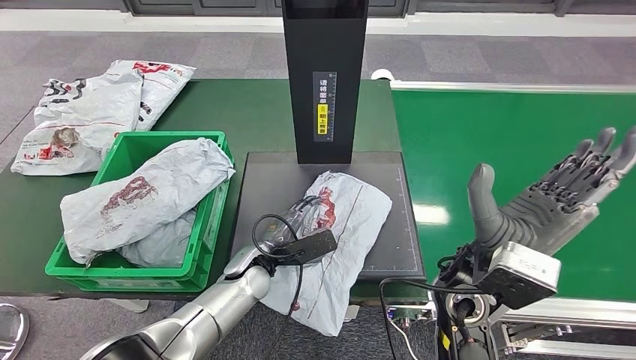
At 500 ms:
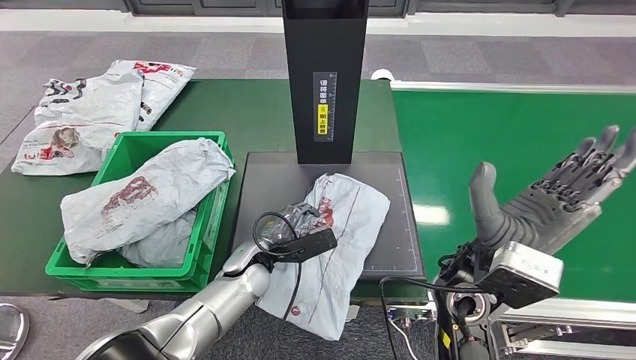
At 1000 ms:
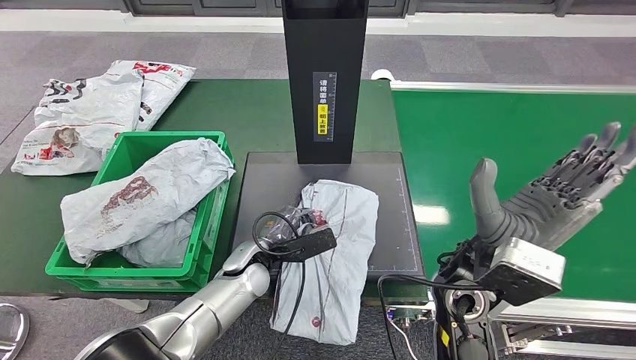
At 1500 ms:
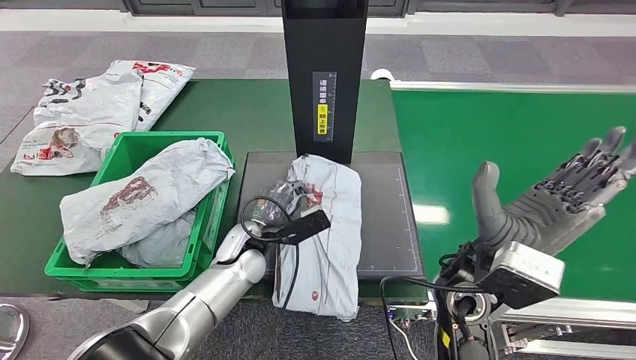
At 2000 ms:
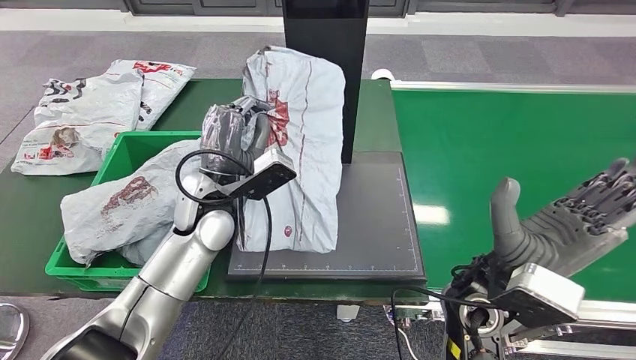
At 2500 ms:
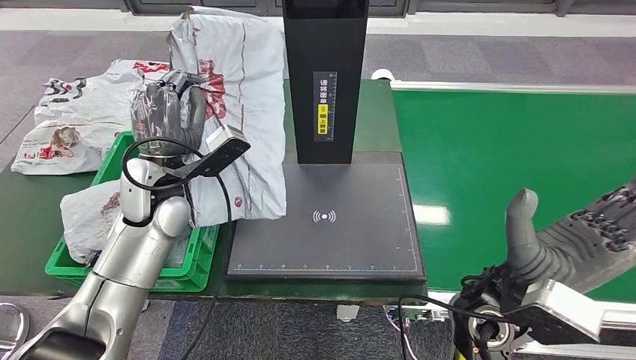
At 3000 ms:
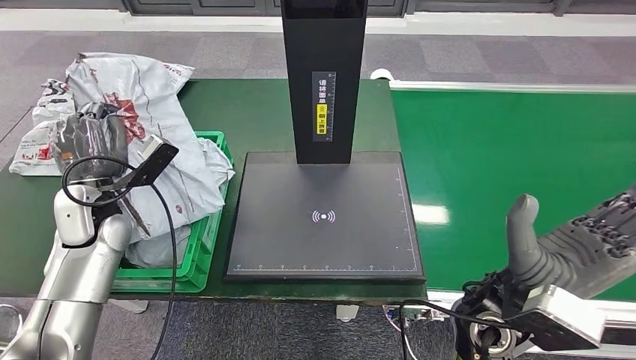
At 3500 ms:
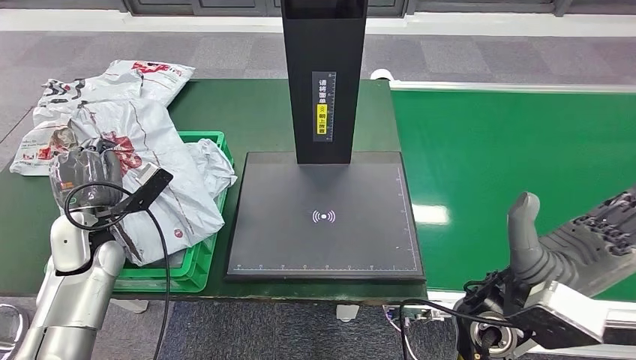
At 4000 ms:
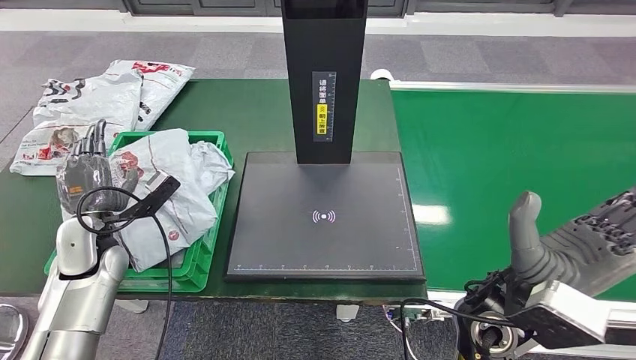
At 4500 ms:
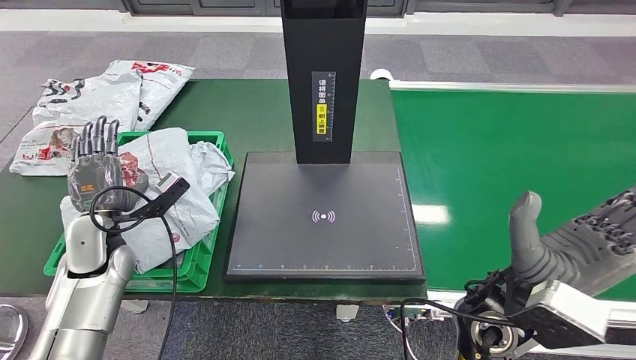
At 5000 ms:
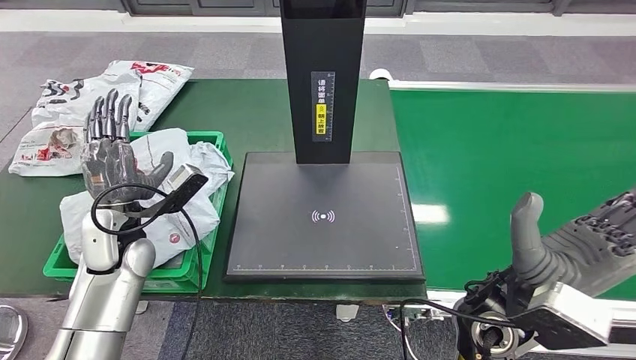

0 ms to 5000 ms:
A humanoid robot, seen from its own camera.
Step, 0 ms to 2000 ms: Pick up the parcel from the inbound machine.
Step, 2500 ms to 5000 ms: Place the parcel into the delivery box.
